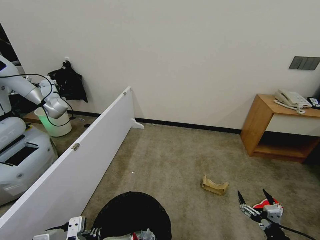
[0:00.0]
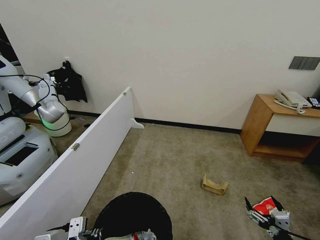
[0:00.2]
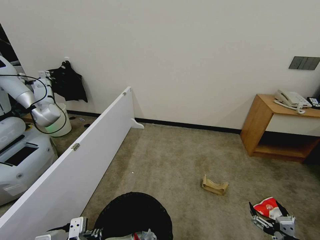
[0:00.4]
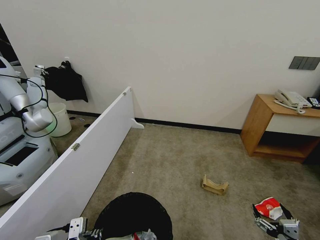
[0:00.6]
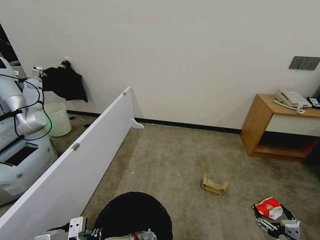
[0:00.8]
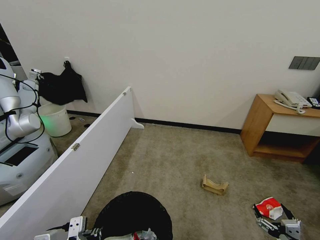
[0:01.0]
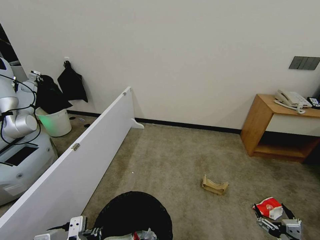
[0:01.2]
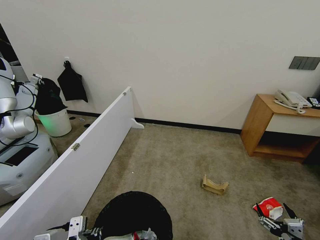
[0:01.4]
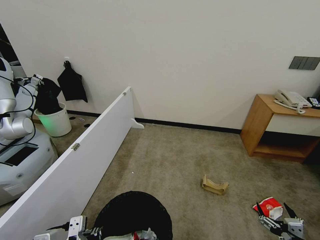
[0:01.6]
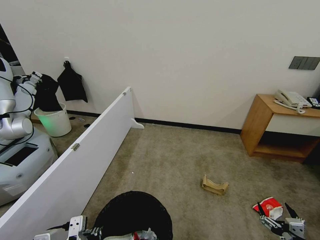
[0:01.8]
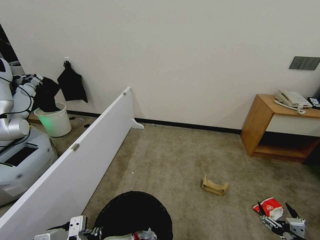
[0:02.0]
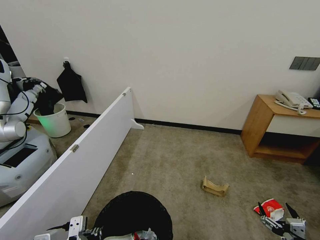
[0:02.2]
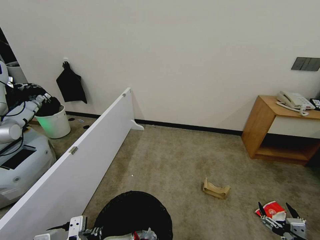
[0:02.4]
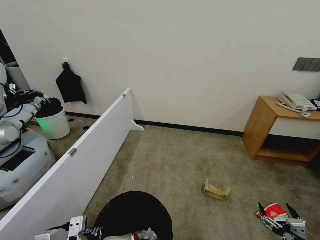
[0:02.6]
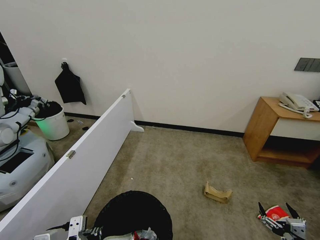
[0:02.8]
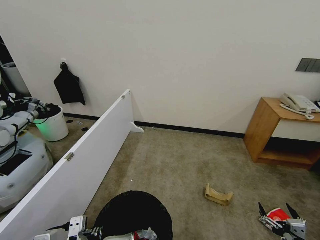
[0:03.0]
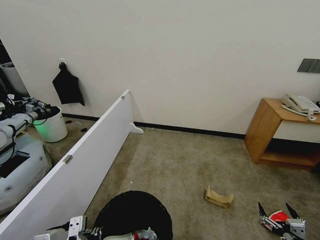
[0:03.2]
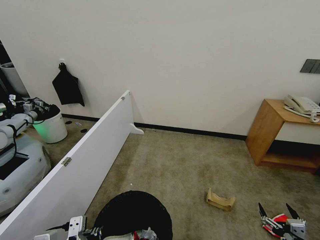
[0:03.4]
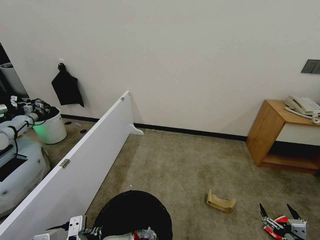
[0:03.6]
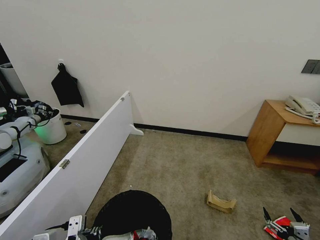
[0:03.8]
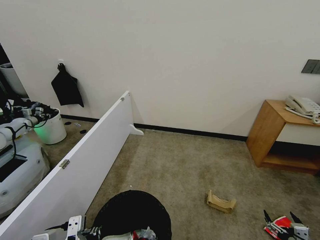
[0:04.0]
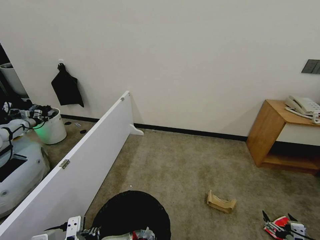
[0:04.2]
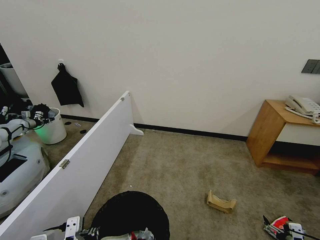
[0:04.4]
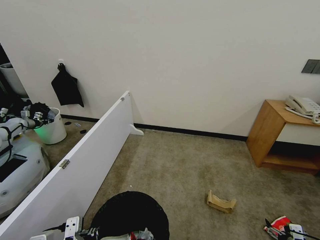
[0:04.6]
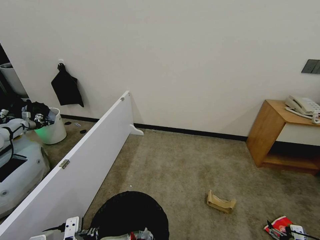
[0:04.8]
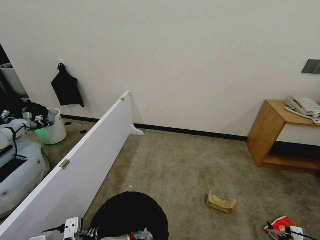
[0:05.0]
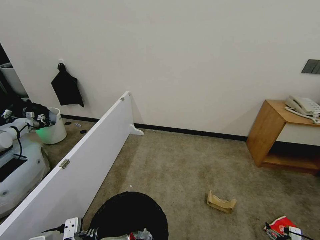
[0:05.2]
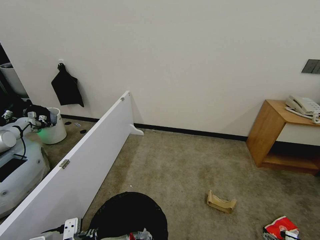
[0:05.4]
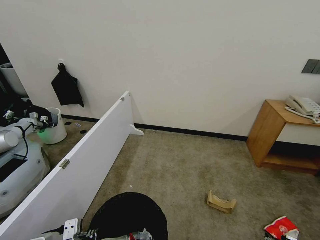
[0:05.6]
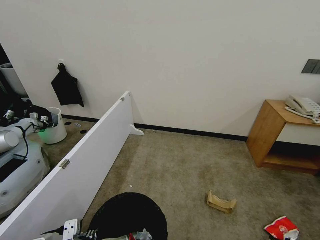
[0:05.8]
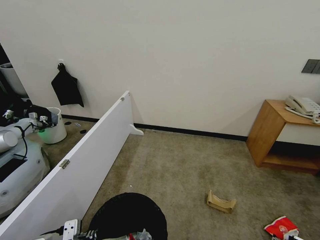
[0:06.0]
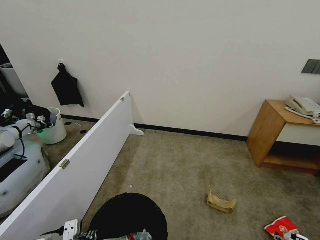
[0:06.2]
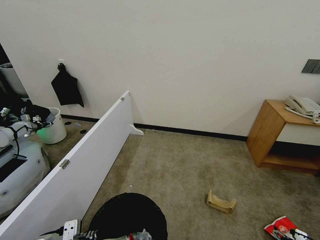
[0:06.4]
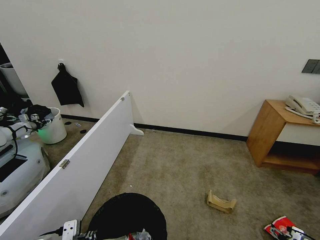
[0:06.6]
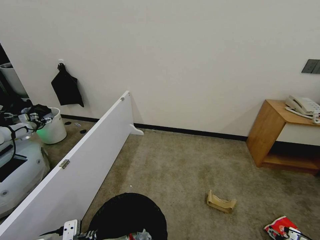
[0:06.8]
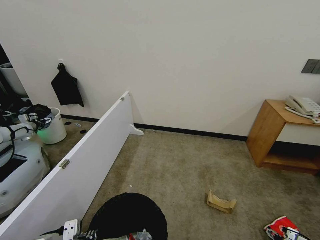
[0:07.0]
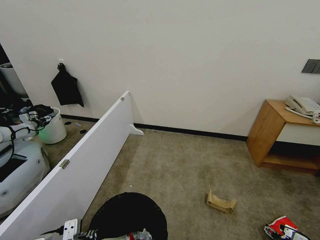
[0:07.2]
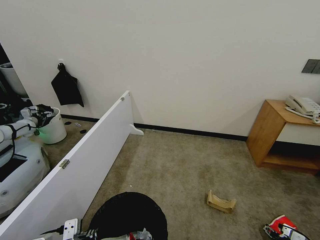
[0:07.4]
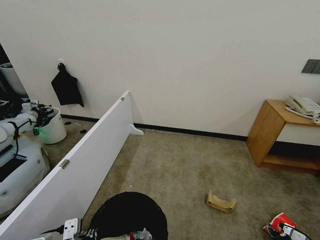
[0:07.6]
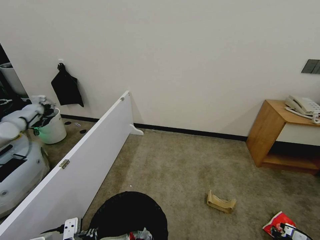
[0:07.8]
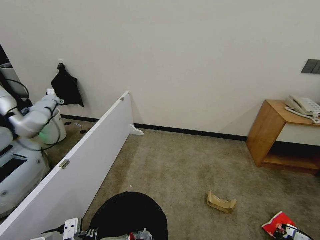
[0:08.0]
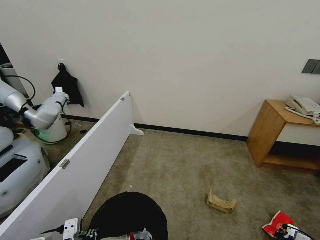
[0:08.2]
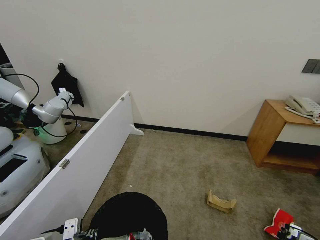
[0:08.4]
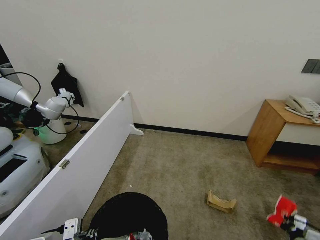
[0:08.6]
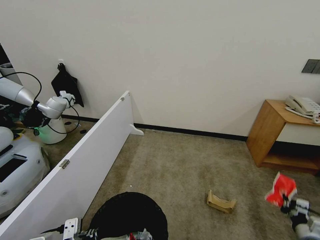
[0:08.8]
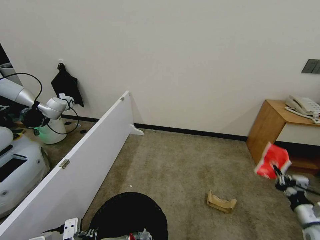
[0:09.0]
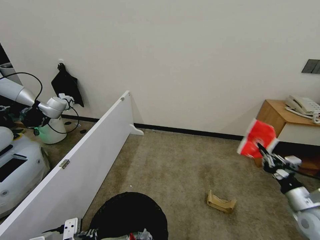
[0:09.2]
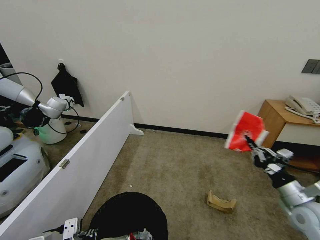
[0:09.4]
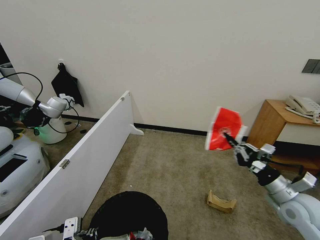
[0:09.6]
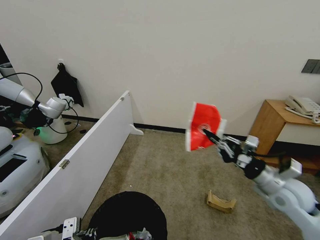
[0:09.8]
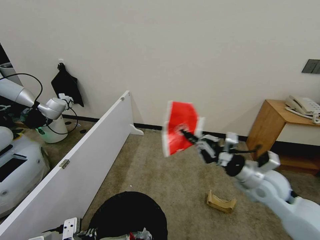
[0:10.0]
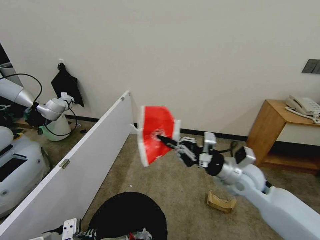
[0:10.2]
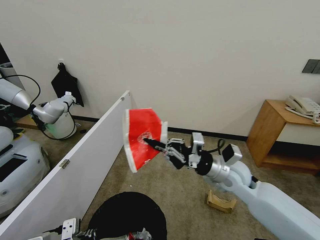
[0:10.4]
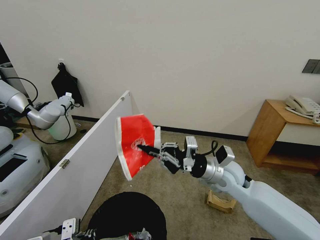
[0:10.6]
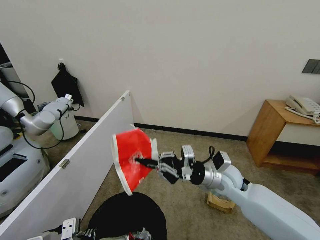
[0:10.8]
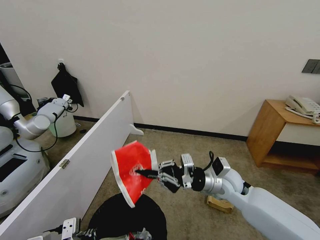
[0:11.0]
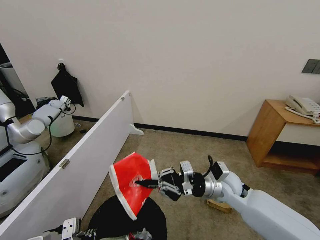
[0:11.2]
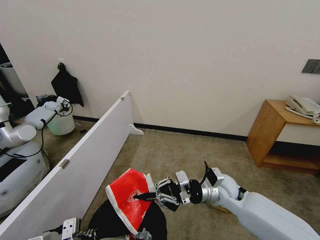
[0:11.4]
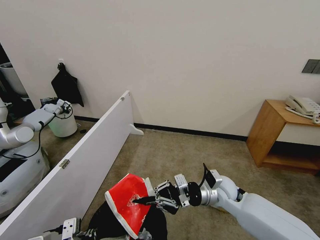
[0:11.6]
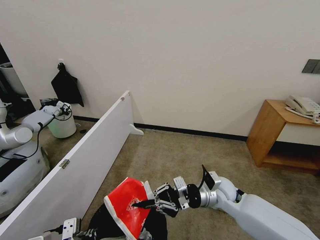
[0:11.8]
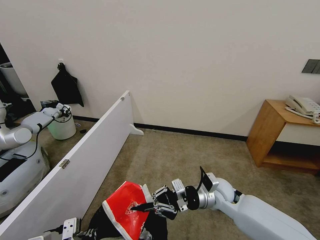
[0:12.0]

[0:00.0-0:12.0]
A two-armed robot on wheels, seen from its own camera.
Task of the whole recording: Pick up the trash bin, then pick up the garbage from the floor and place it into the trash bin.
0:00.0 to 0:01.6: The right gripper changes place by some 5 cm.
0:01.6 to 0:03.0: Neither gripper changes place.
0:03.0 to 0:04.4: The right gripper goes approximately 5 cm to the right.
0:04.4 to 0:06.0: The right gripper shifts approximately 10 cm downward.
0:06.0 to 0:07.6: The right gripper travels forward by roughly 5 cm, and closes its fingers.
0:07.6 to 0:09.0: The right gripper shifts about 20 cm upward, and closes up.
0:09.0 to 0:10.4: The right gripper is displaced to the left, upward and forward by some 35 cm.
0:10.4 to 0:12.0: The right gripper heads downward, covering roughly 10 cm.

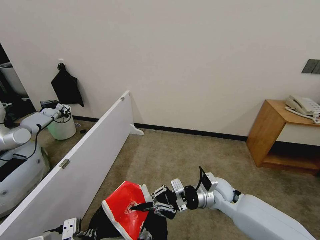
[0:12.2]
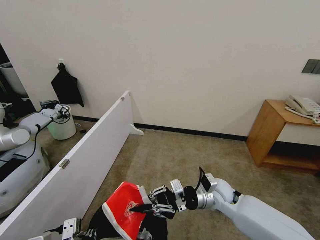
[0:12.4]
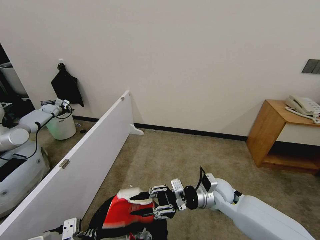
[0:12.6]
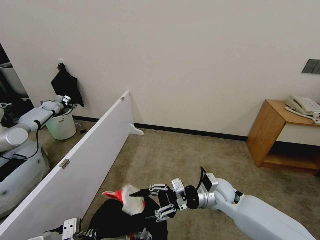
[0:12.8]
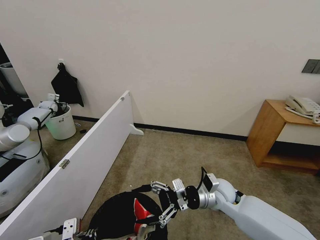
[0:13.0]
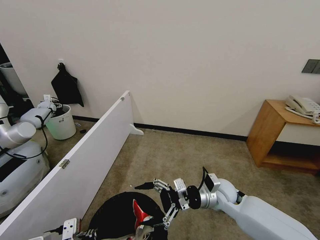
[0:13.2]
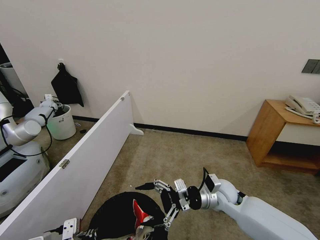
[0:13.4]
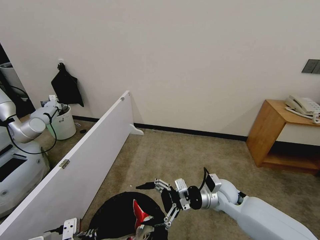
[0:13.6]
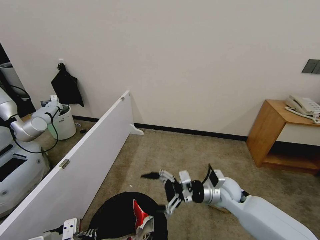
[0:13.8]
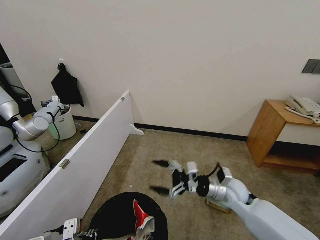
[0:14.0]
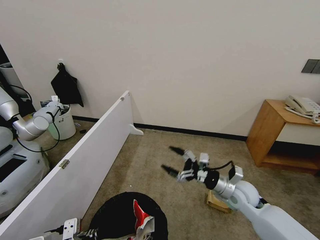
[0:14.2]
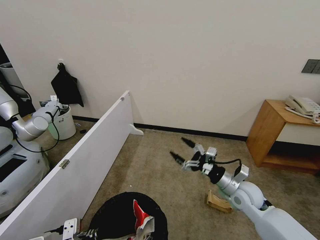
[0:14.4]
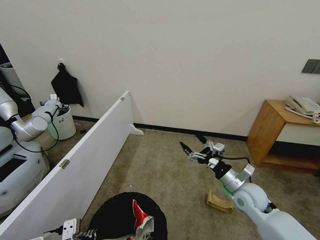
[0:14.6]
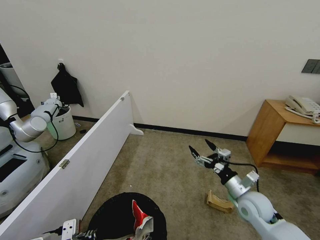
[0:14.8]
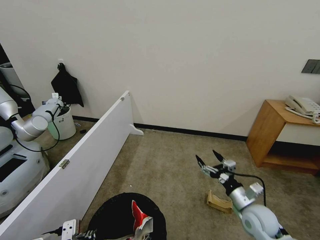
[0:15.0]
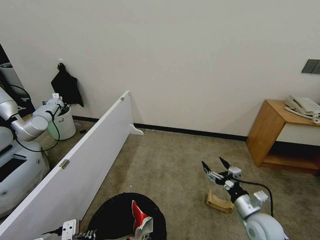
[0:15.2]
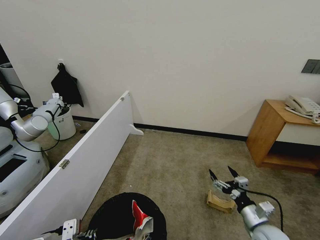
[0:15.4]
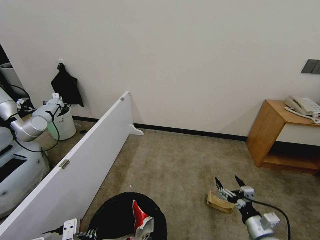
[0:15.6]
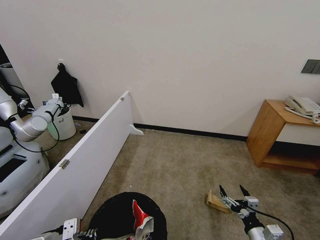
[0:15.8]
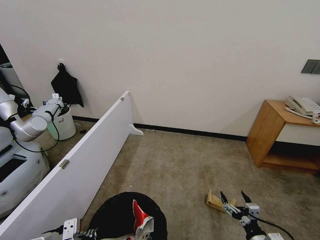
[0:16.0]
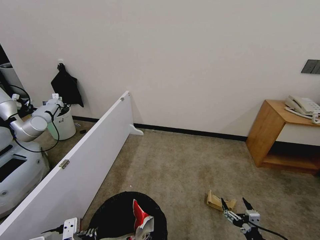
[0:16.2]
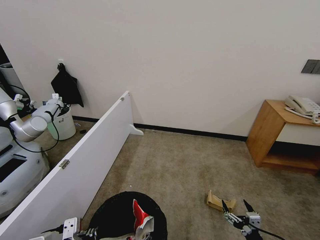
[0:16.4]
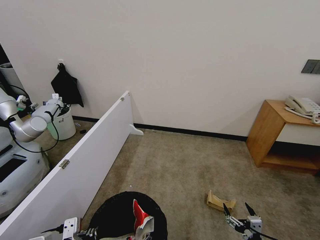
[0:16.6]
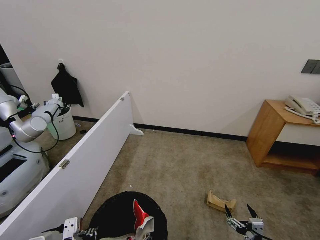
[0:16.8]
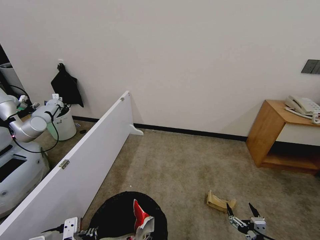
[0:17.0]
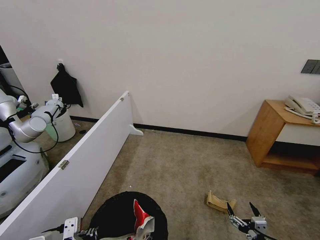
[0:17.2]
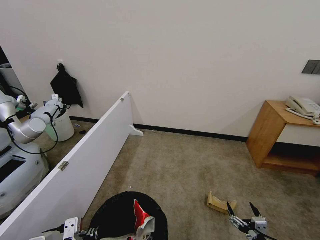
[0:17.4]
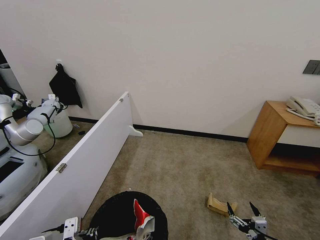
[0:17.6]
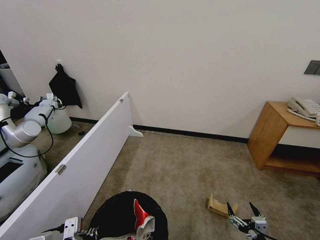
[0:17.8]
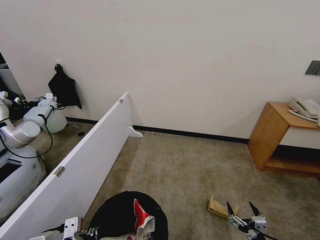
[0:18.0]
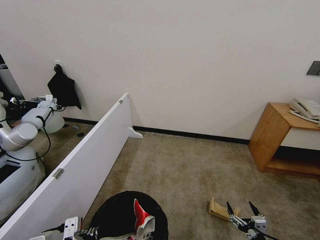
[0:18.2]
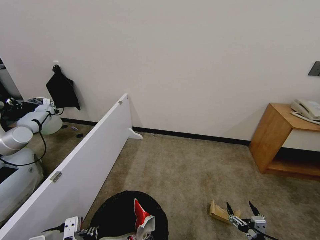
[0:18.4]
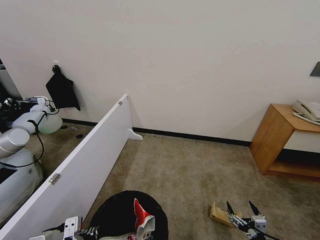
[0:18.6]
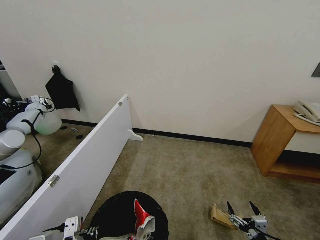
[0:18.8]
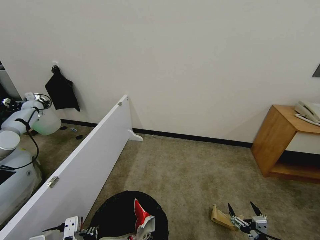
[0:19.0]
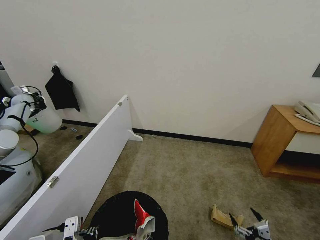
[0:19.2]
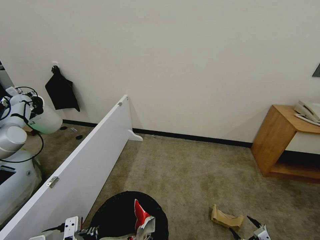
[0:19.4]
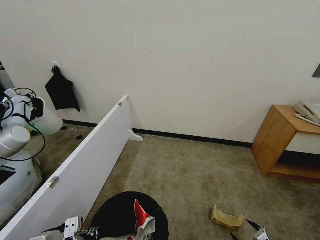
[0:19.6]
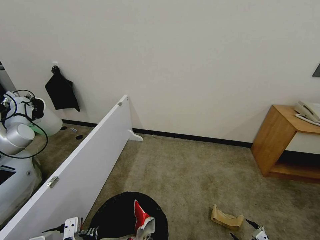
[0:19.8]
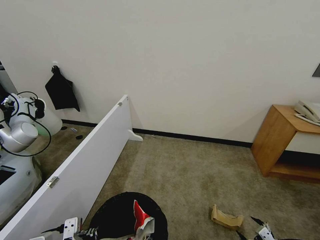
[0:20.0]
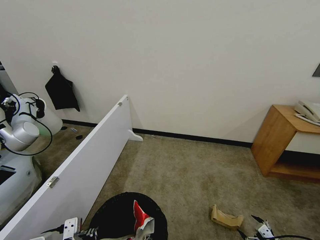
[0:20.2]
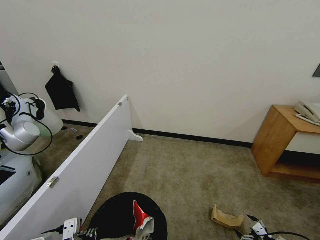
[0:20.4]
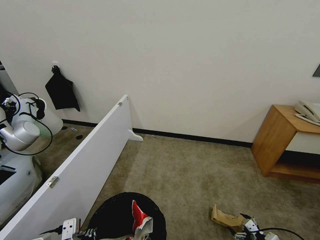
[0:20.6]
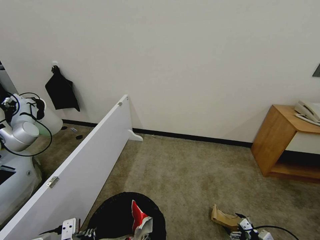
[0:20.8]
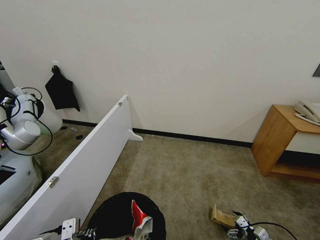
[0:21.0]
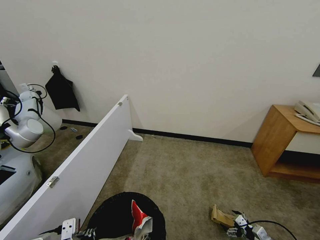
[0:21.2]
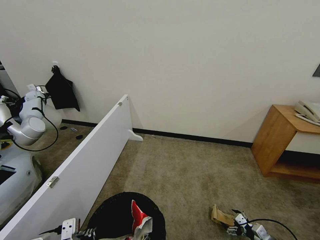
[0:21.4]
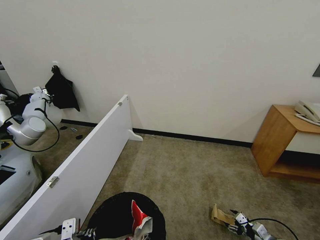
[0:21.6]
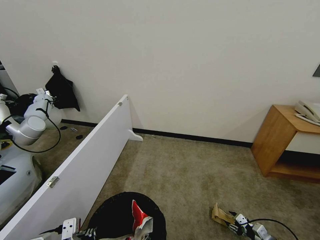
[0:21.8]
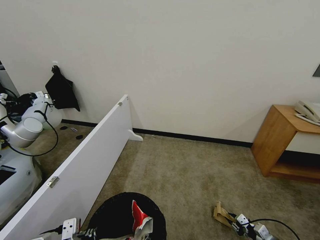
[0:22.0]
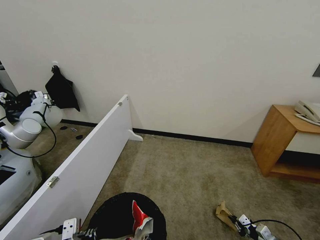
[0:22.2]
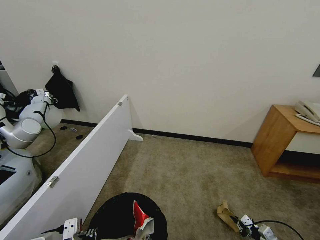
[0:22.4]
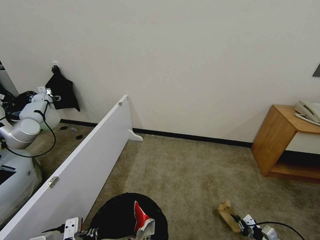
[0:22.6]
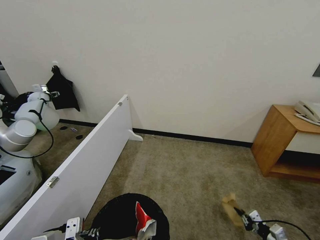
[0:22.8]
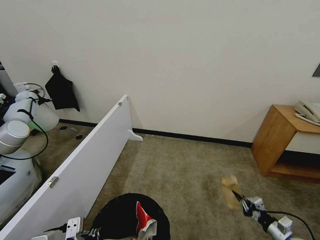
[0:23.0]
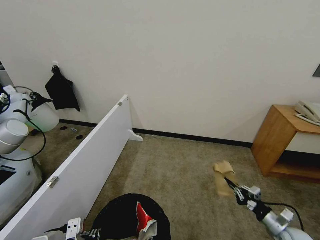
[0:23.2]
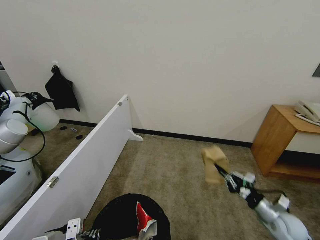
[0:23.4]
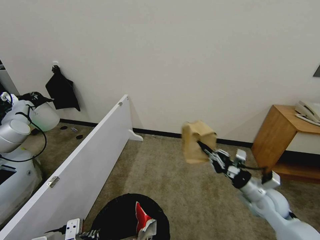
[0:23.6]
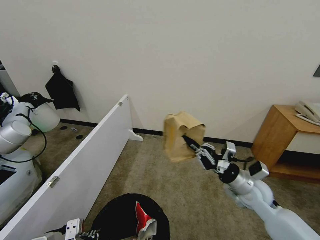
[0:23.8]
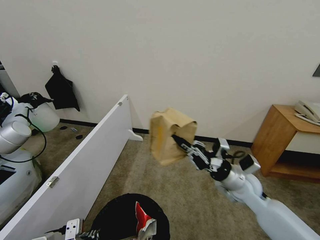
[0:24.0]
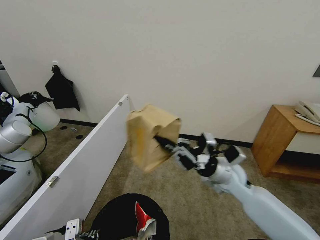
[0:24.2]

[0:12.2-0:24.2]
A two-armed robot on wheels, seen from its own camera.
Task of the whole recording: Pick up the trash bin, then pick up the garbage from the floor and place it into the trash bin.
0:12.2 to 0:13.8: The right gripper opens its fingers.
0:13.8 to 0:15.2: The right gripper shifts approximately 15 cm to the right, backward and downward.
0:15.2 to 0:16.6: The right gripper shifts some 15 cm backward and downward.
0:16.6 to 0:18.2: Both grippers stay about where they are.
0:18.2 to 0:19.8: The right gripper is displaced to the right by roughly 10 cm.
0:19.8 to 0:21.2: The right gripper goes approximately 15 cm forward and downward.
0:21.2 to 0:22.6: The right gripper closes its fingers.
0:22.6 to 0:24.2: The right gripper goes about 40 cm upward, to the left and forward.
